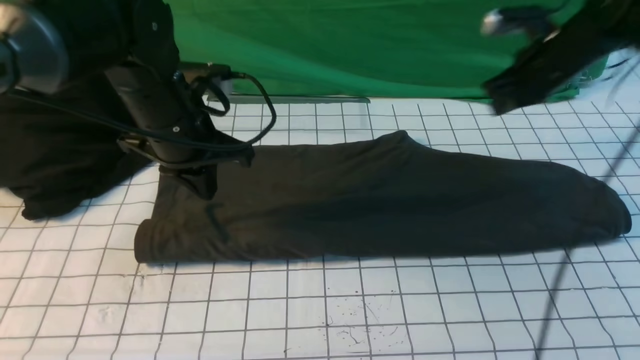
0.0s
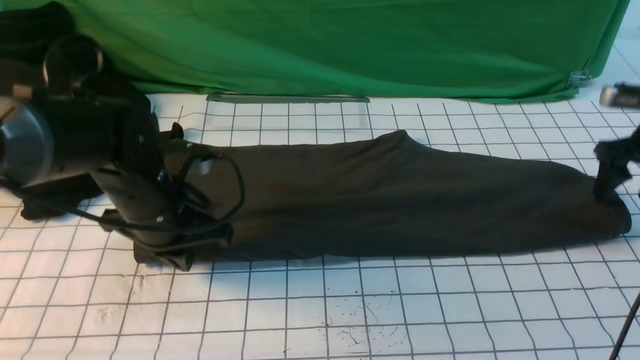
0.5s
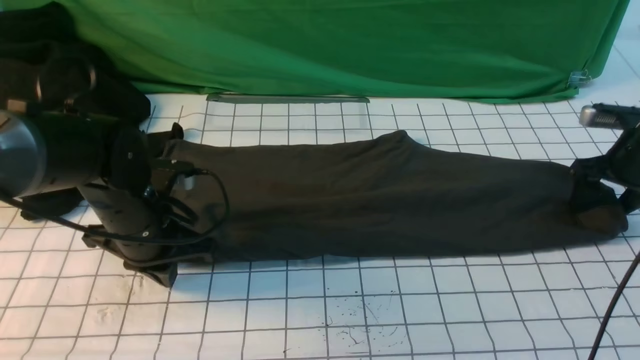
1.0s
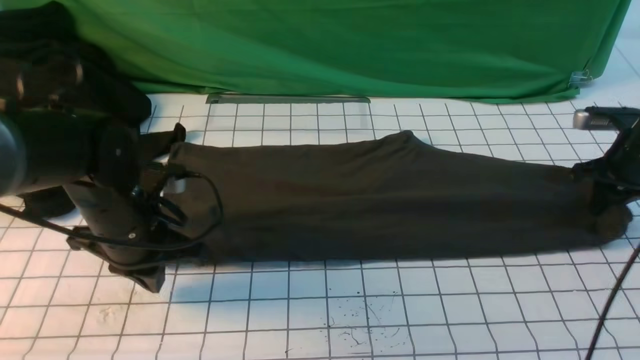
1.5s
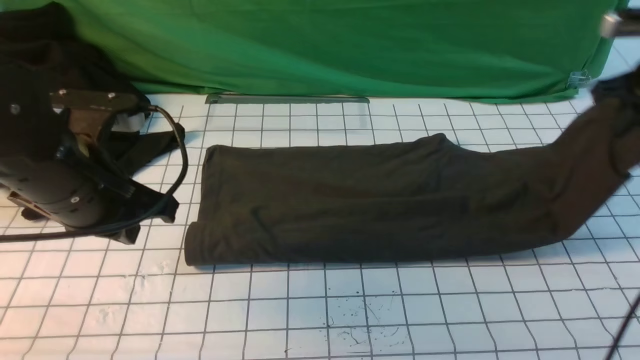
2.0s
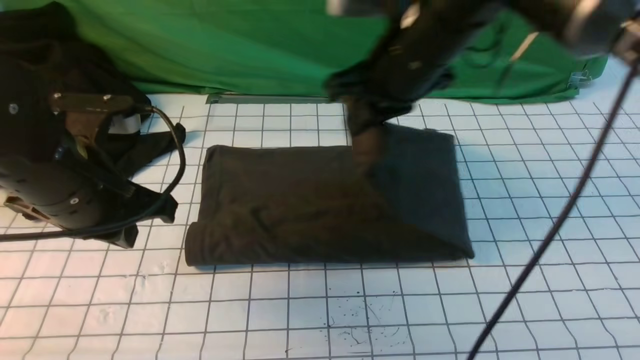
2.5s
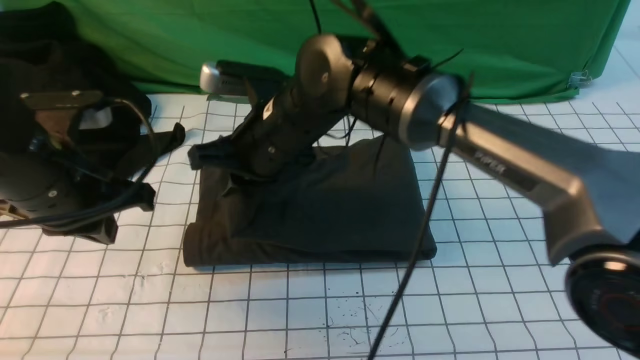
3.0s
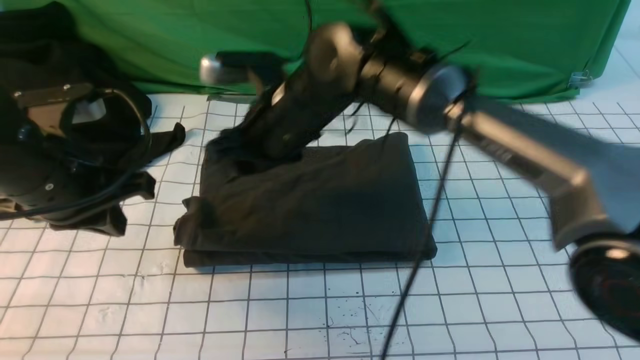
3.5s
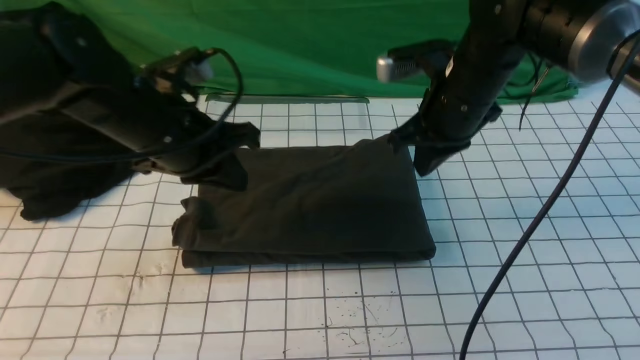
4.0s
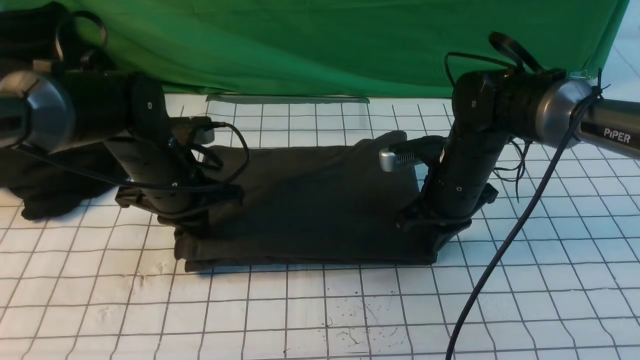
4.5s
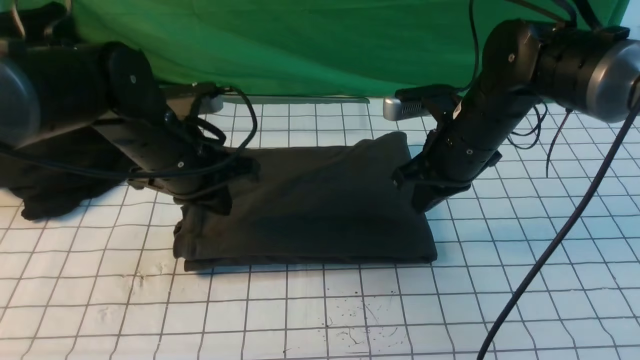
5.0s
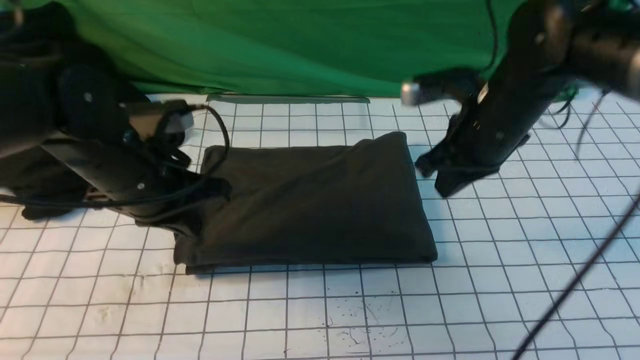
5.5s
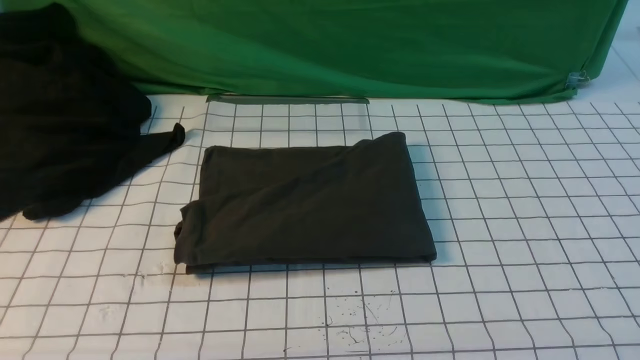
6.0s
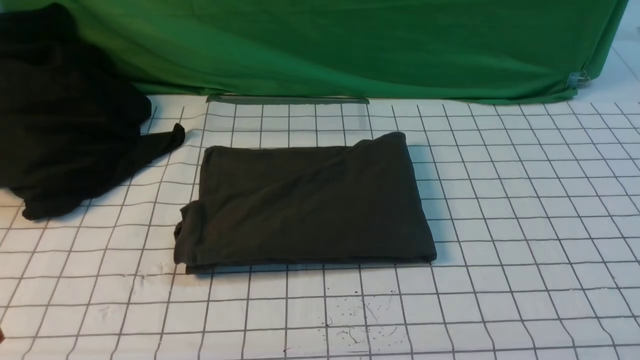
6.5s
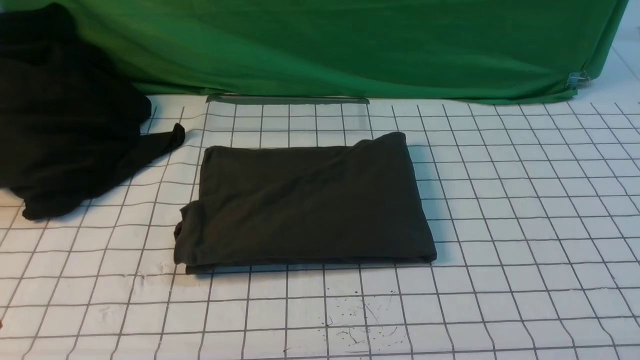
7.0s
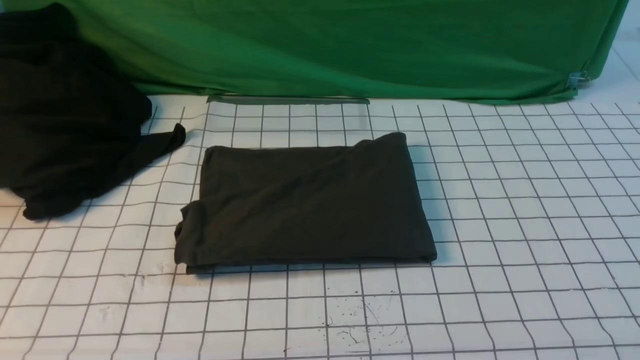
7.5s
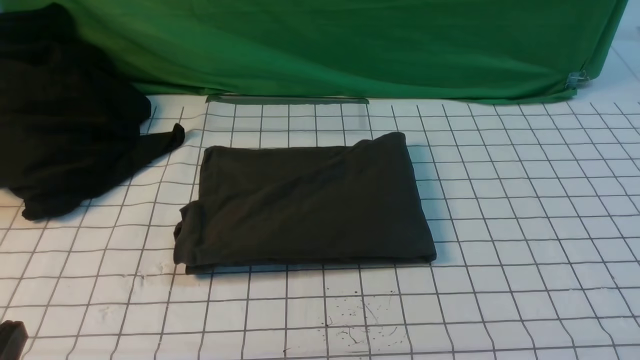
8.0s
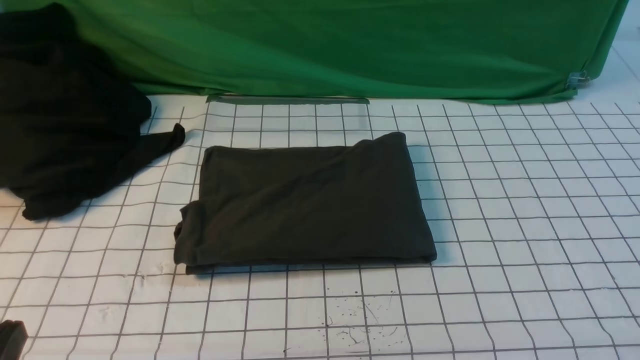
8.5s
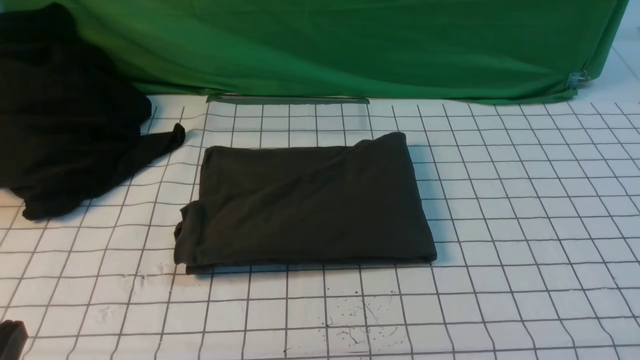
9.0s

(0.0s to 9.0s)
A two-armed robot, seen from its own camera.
Step, 2.0s - 3.0s: use the right arm to drag the right edge of the fabric to the left and folds it over the left edge.
0.0s - 2.0s: The left gripper shifts about 10 cm backward, and goes downward and returns, some 10 cm each way. Meanwhile the right gripper is displaced backward and upward by about 10 cm, and opens and closes again.
2.0s - 4.5s: The right gripper is displaced to the left and downward by some 20 cm, and opens, then closes again. The left gripper moves forward and downward, about 10 cm.
4.5s - 7.0s: The right gripper goes roughly 50 cm backward, to the right and upward, while the left gripper is displaced backward by approximately 35 cm.

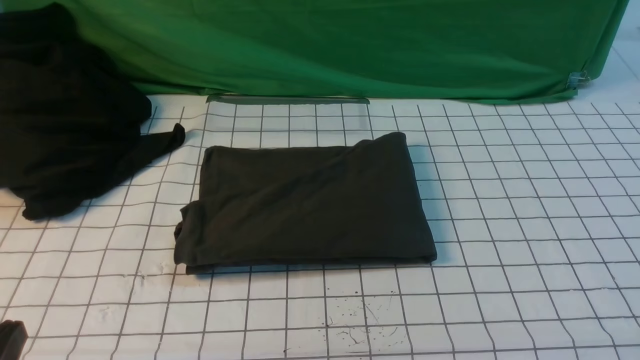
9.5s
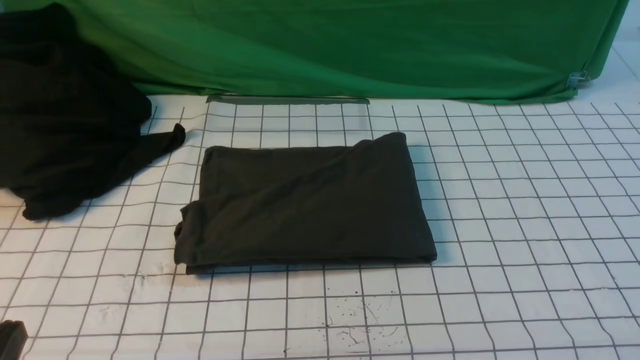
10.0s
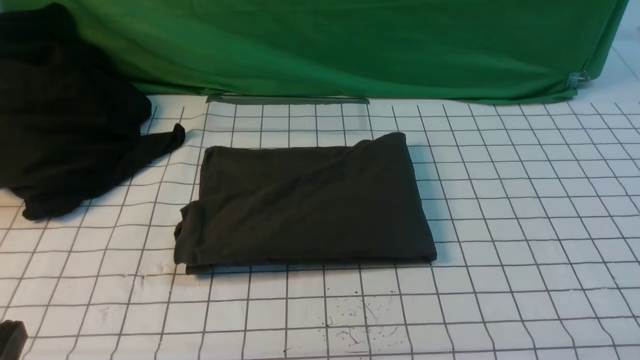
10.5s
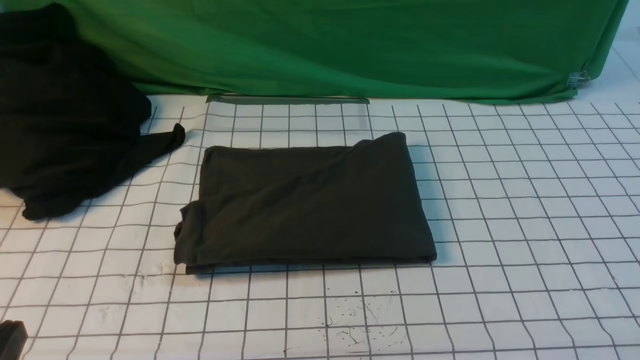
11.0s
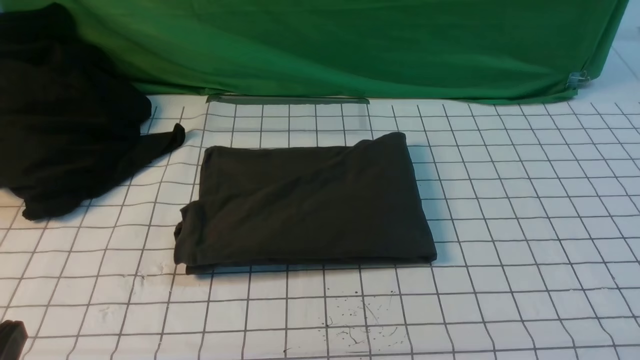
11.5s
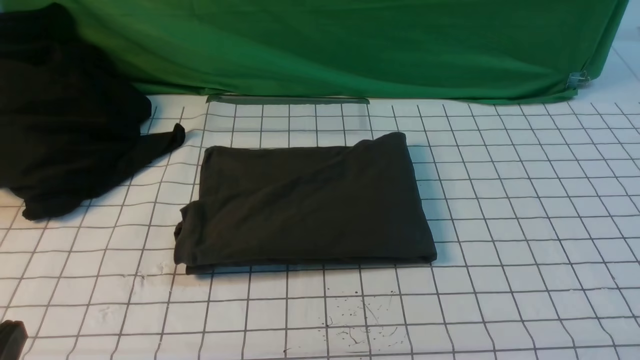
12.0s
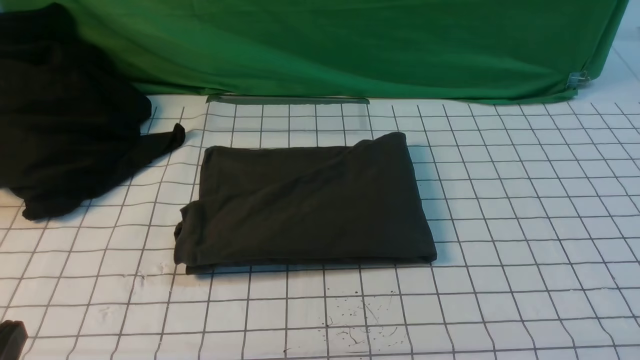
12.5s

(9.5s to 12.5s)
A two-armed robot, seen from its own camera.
11.0s - 12.5s: Both grippers stay put.

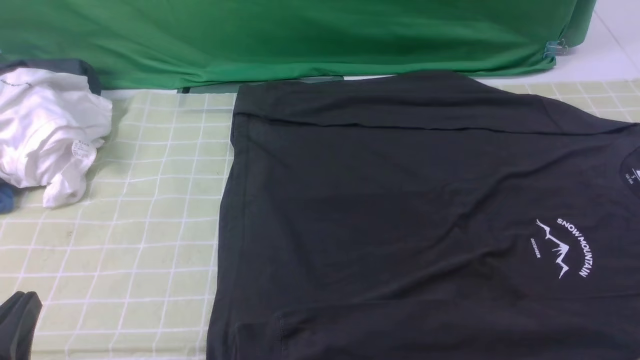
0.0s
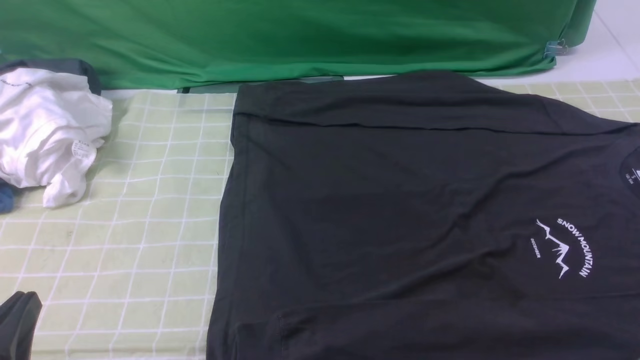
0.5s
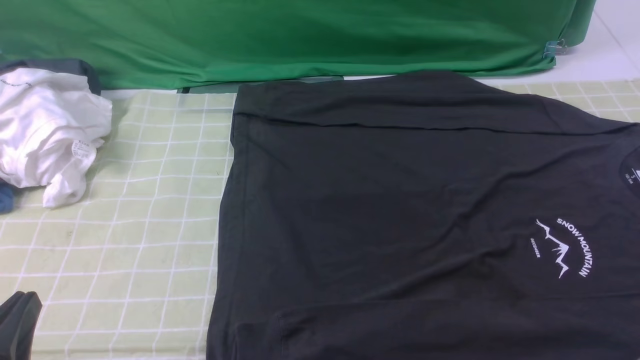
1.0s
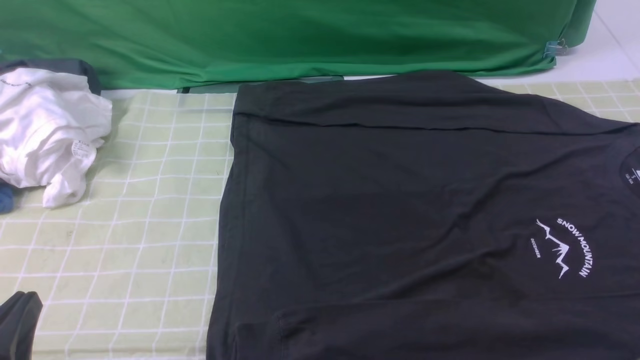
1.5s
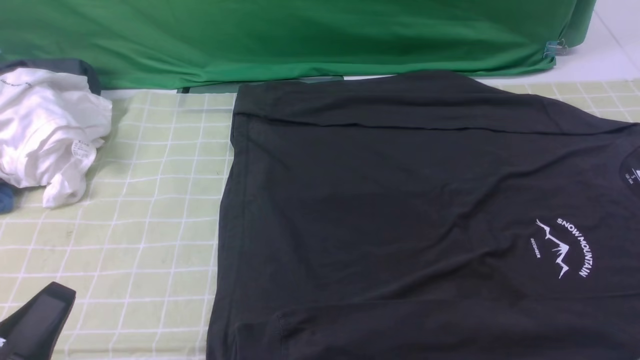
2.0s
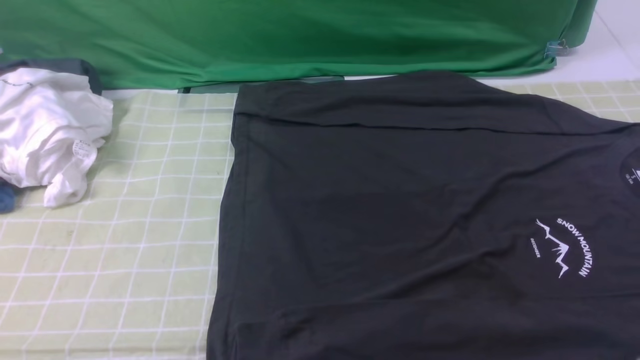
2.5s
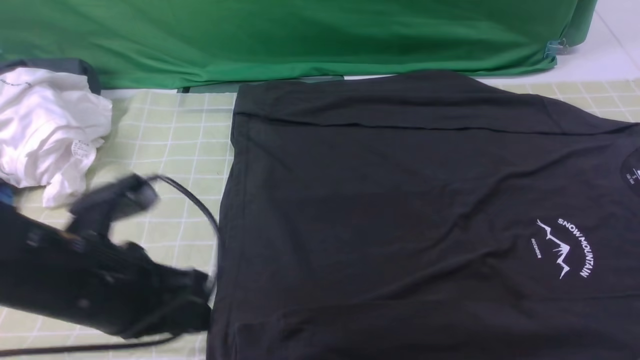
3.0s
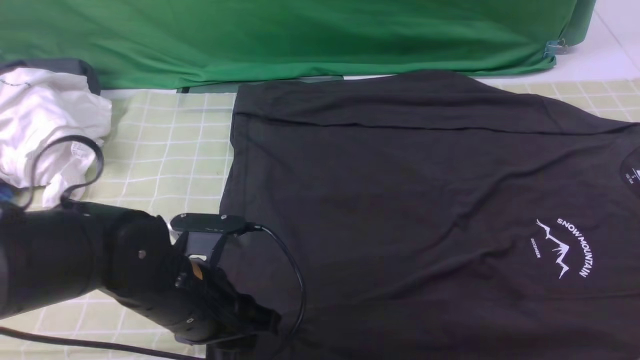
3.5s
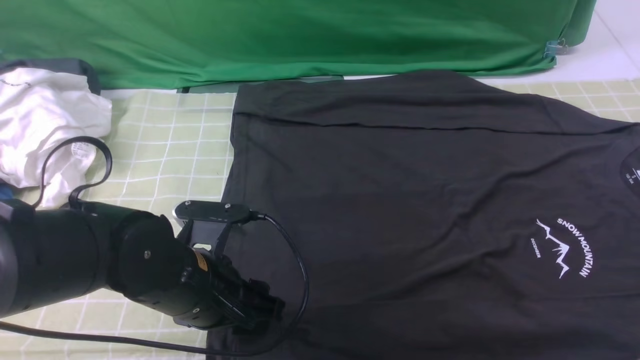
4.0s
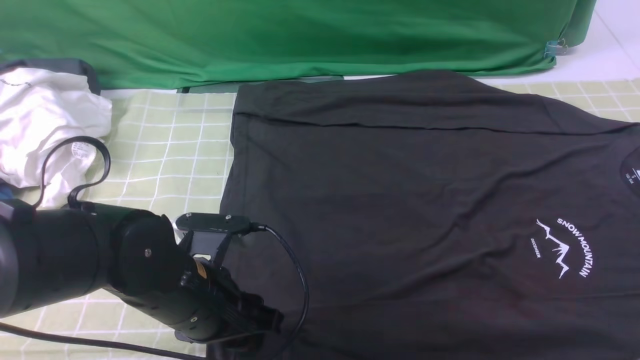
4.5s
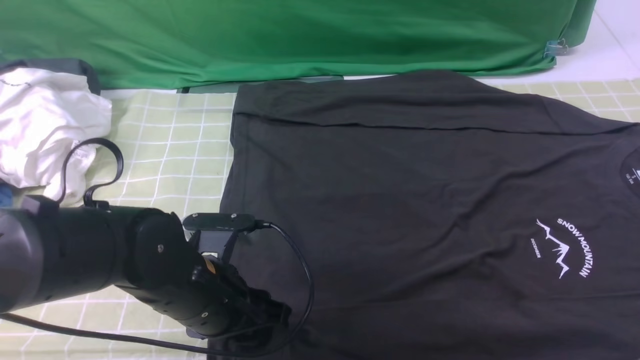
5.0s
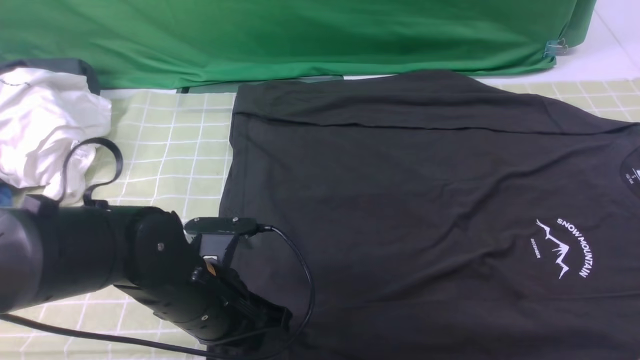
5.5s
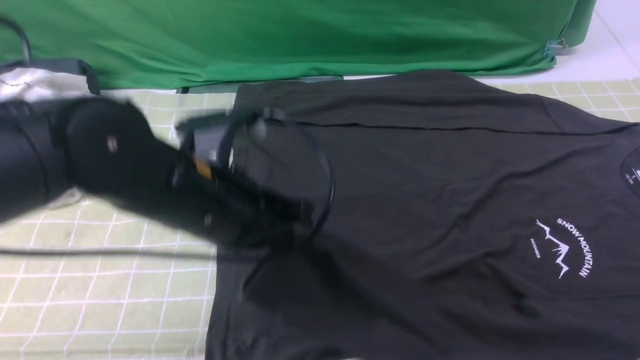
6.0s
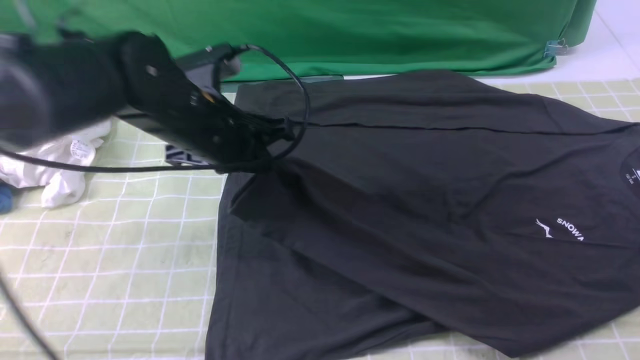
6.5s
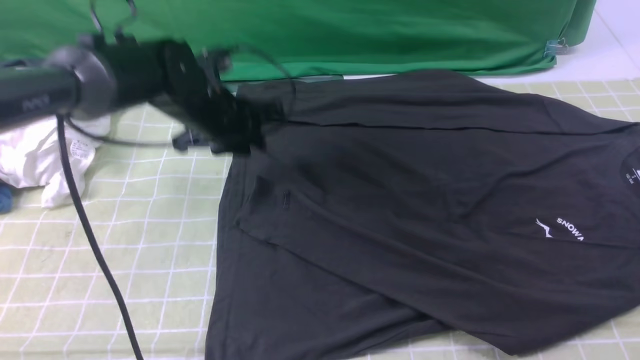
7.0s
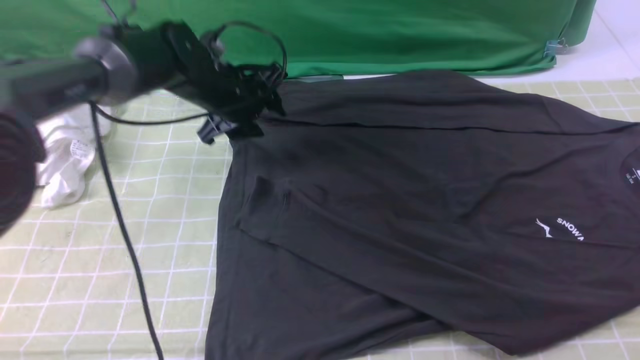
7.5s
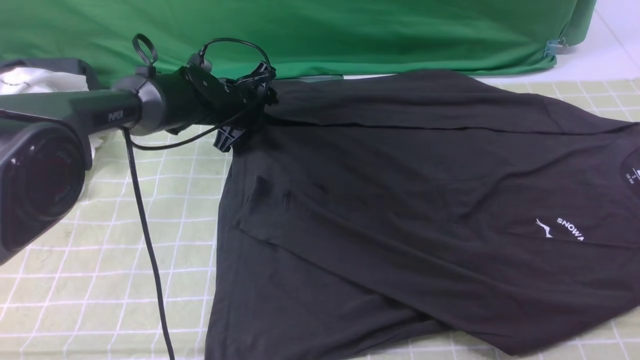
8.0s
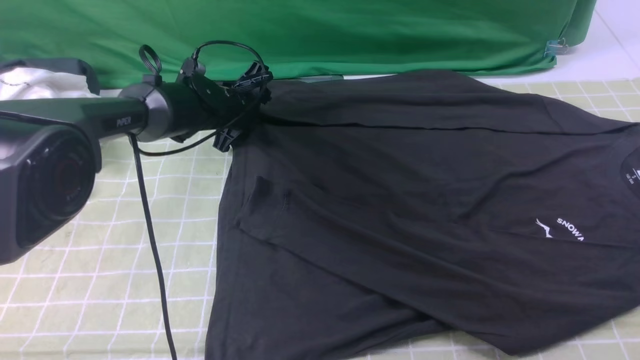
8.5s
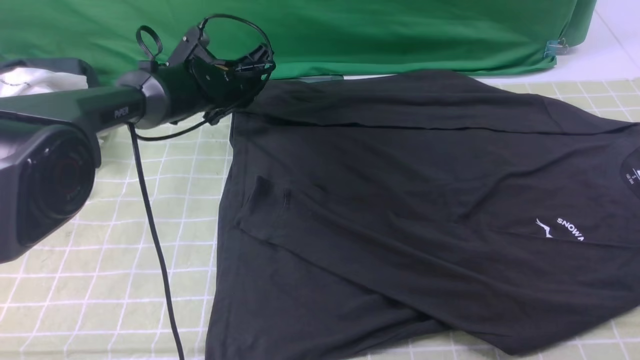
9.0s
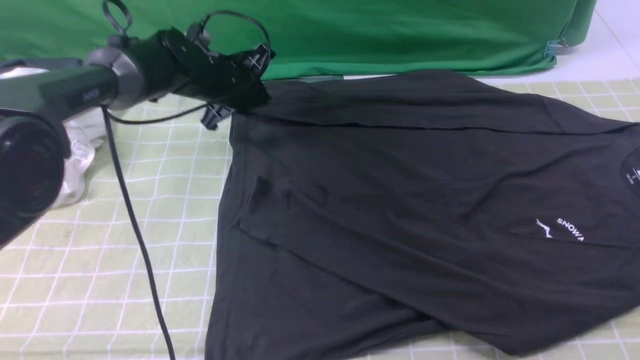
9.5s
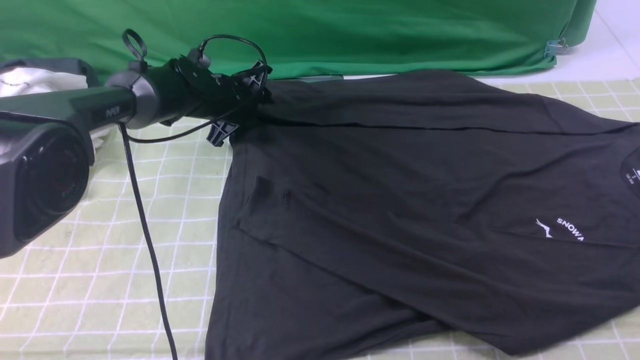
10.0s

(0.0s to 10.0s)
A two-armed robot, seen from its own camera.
Step, 0.0s - 5.5s: use the left arm to clamp the cuff closest to it.
Step, 6.0s - 6.5s: use the left arm to drag and place the cuff at the centered position on the left edge of the fabric.
2.0s - 4.0s: The right gripper heads upward and forward, covering about 15 cm; the left gripper moves forward and to the right, about 20 cm, and opens its fingers.
4.0s - 6.0s: The left gripper shifts about 10 cm upward, and closes its fingers.
6.0s - 8.0s: The left gripper is displaced forward and downward by about 30 cm, and opens up.
8.0s - 10.0s: The left gripper closes and opens again.
